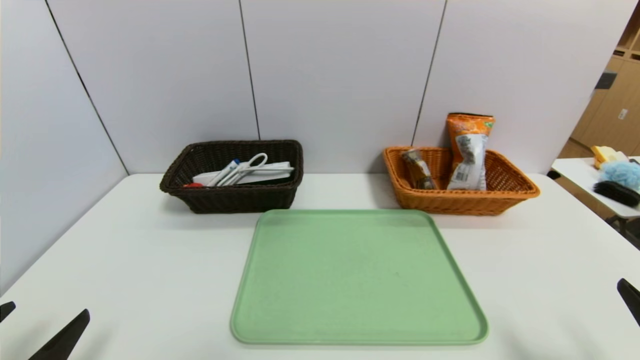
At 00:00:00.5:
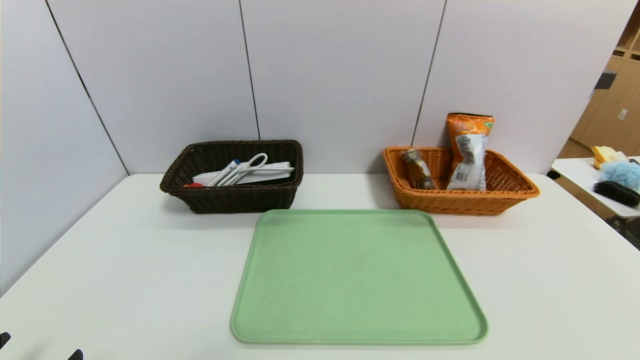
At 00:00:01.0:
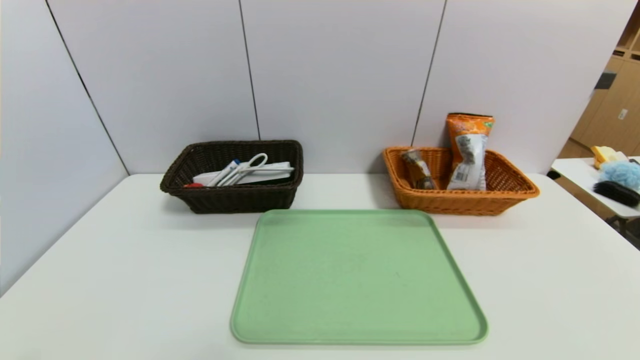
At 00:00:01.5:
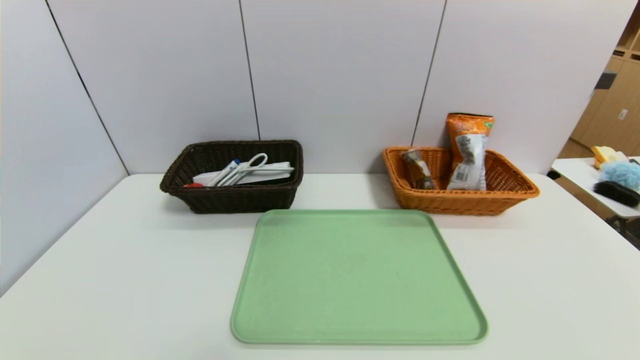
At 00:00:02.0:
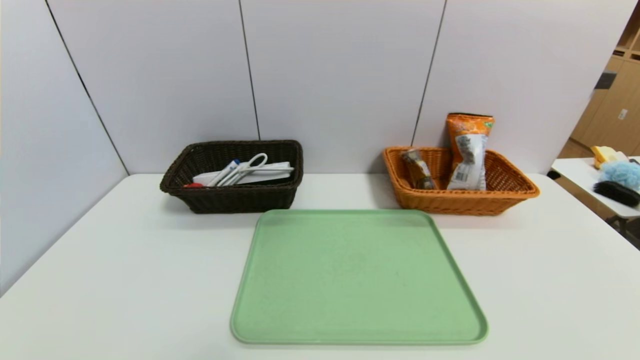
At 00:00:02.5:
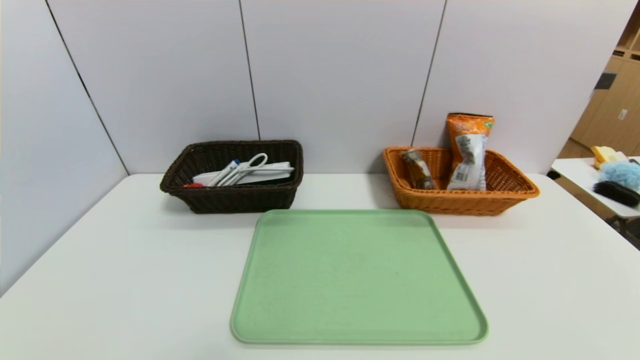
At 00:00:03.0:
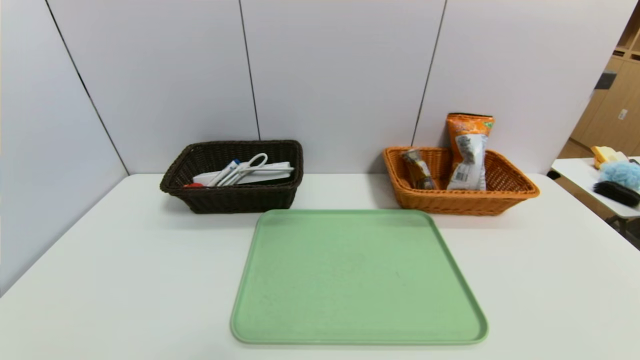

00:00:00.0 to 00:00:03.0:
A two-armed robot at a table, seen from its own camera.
Task of the whole recording: place the food in the right basket with the right gripper, and place the non food items in the left basket with the left gripper.
00:00:00.0 to 00:00:01.5: The left gripper is displaced backward and downward by roughly 10 cm.
